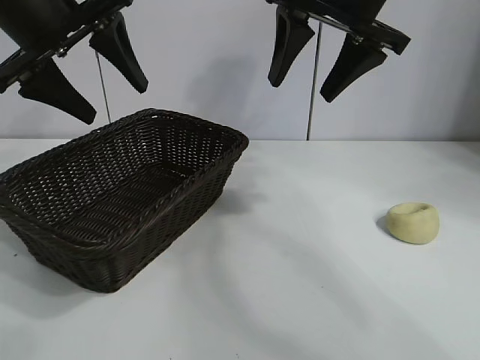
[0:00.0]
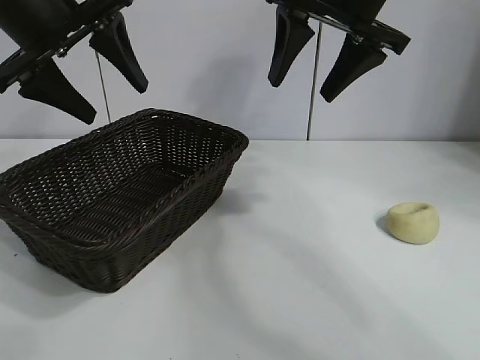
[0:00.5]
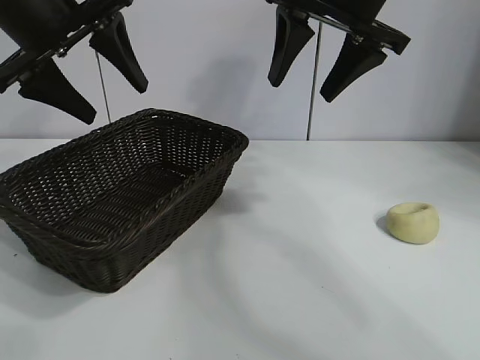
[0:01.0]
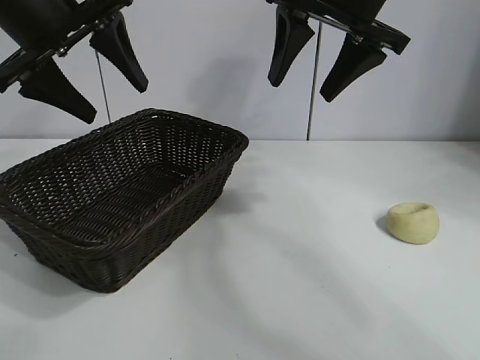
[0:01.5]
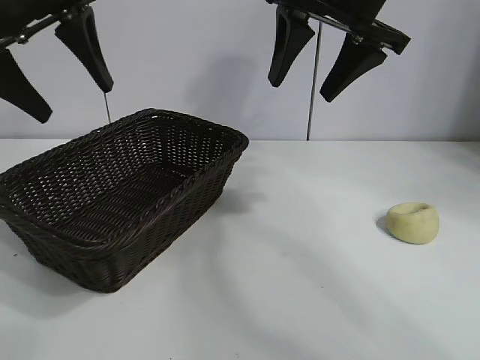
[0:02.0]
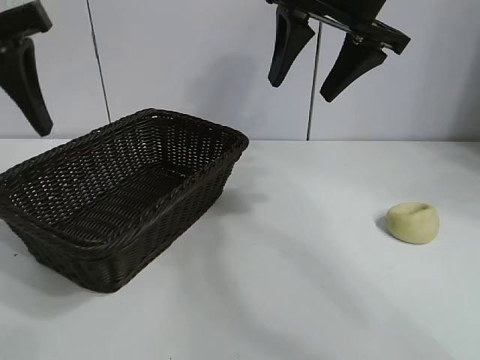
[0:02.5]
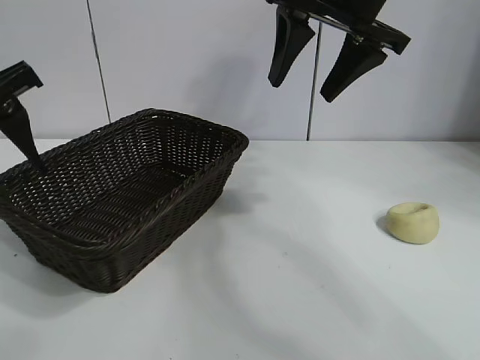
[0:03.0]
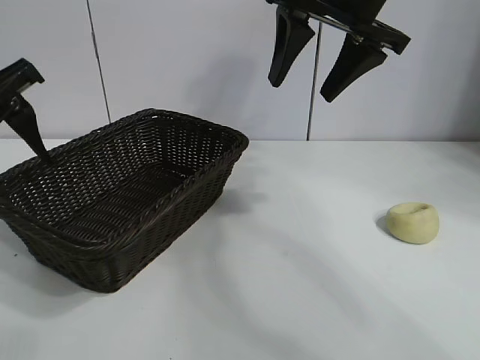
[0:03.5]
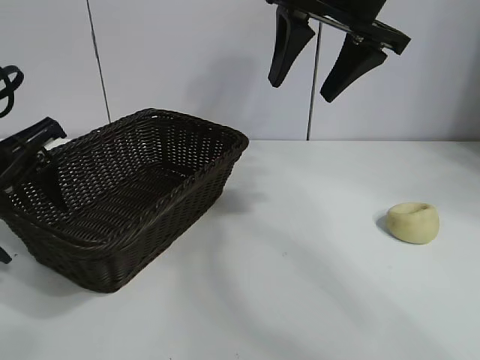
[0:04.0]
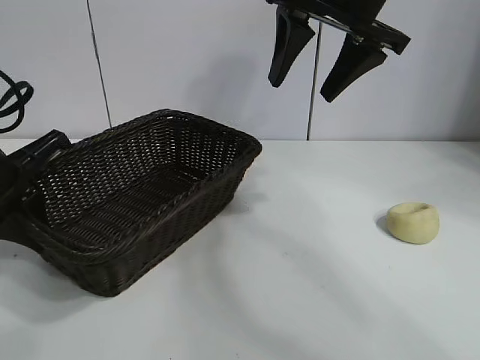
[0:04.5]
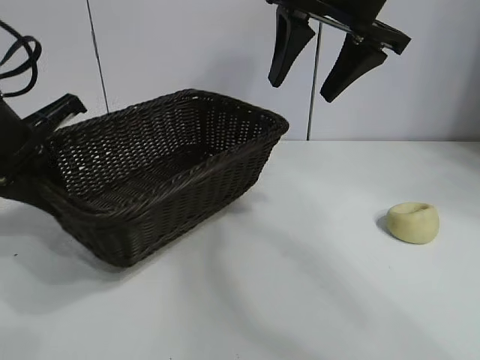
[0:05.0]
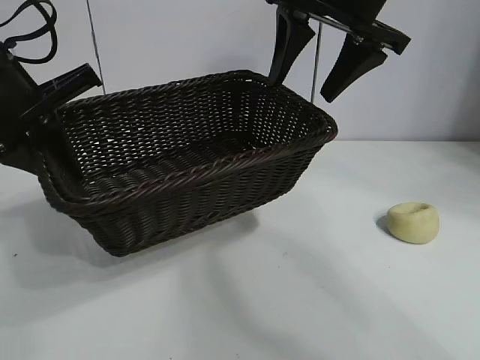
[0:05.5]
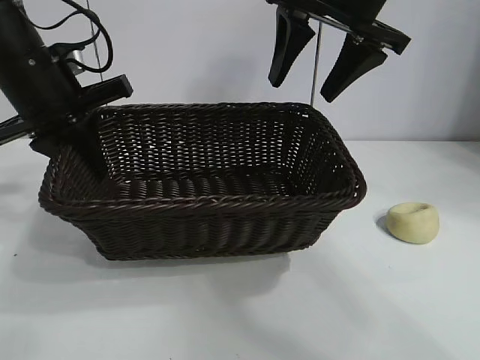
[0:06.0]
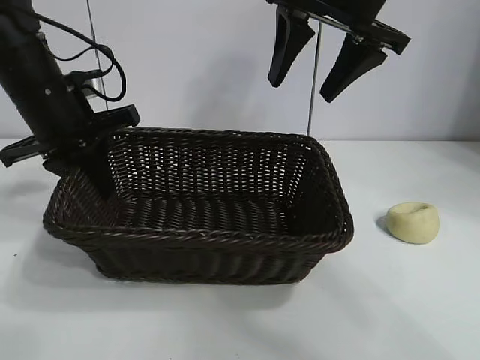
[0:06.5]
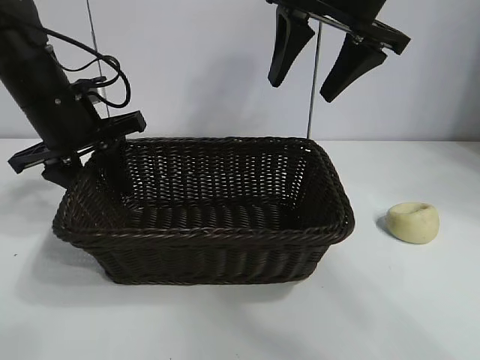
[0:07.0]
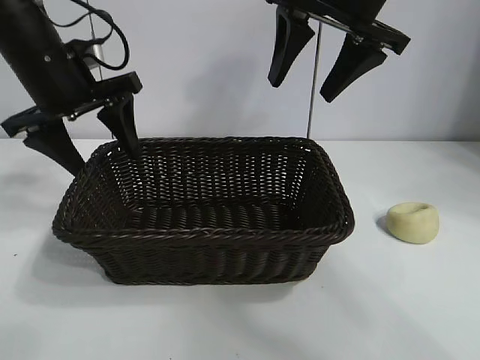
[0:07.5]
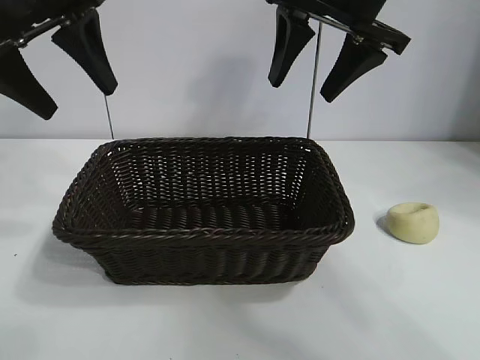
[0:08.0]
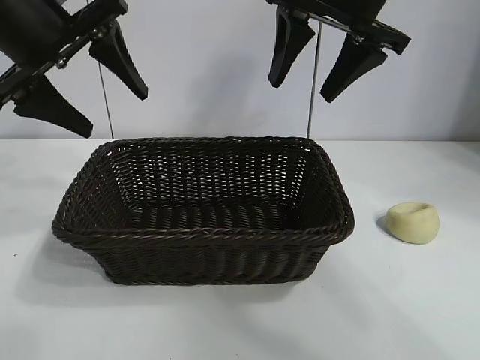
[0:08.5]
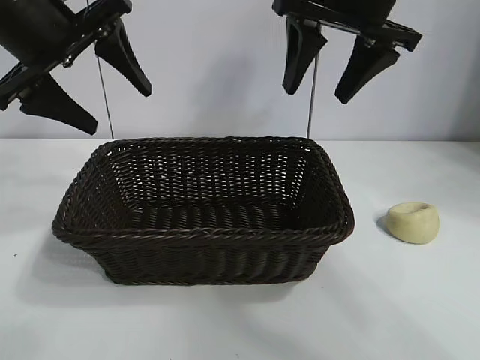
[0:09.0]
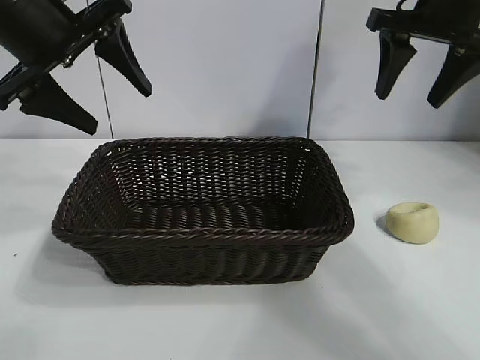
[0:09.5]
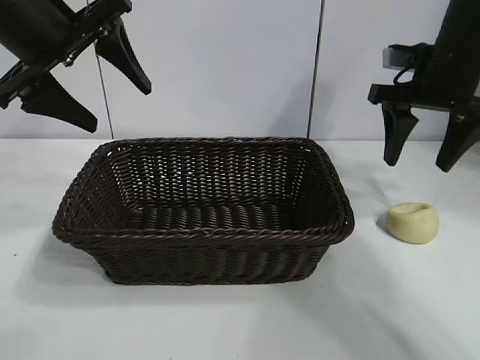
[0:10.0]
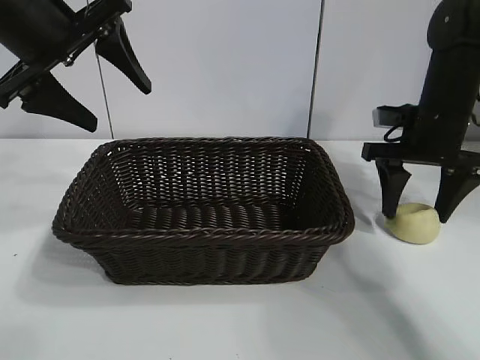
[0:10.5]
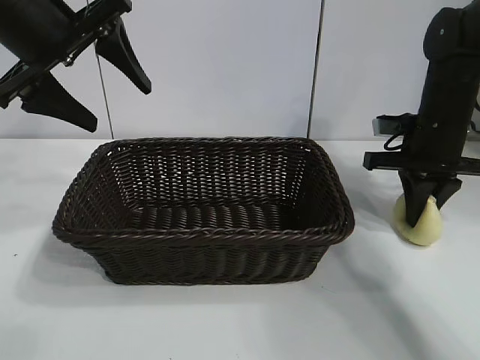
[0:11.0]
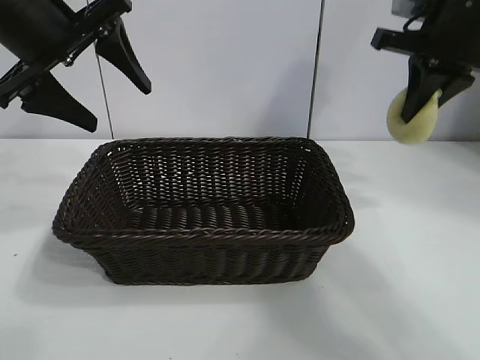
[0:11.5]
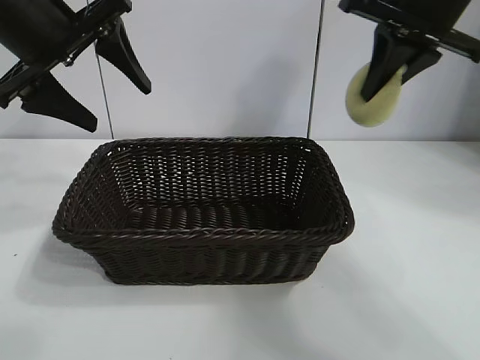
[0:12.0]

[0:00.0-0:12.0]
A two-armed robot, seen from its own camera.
Task of the whole recording: pick up the egg yolk pastry and put it into the basket.
Step, 0:01.5 to 0:04.0: Grasp the basket with left gripper.
Step, 0:05.0 to 0:07.0: Place the basket in the center of view with left gripper.
Step, 0:07.5 to 0:10.5: Grasp egg yolk pastry with right gripper.
